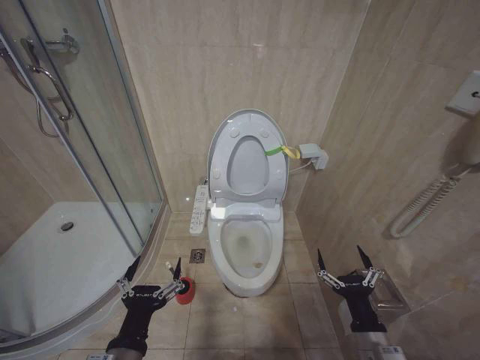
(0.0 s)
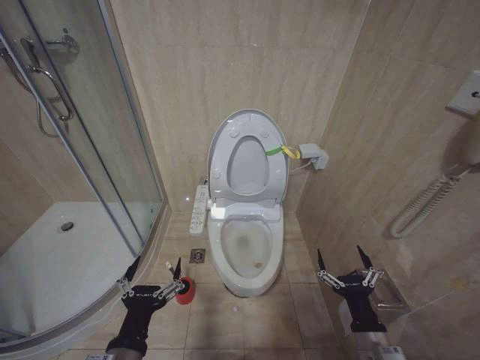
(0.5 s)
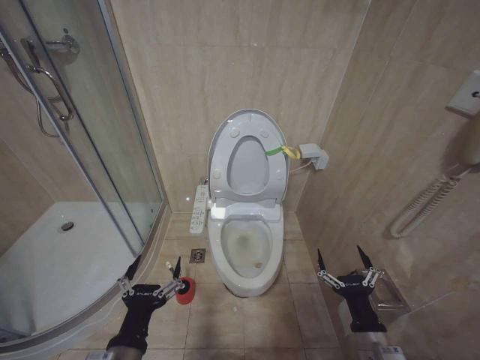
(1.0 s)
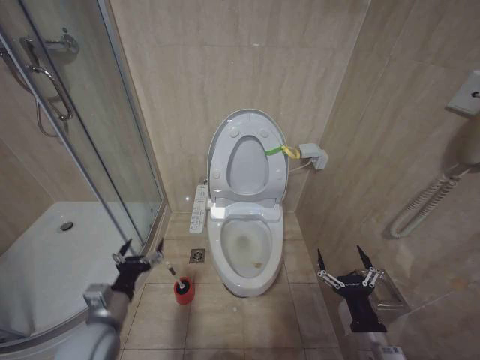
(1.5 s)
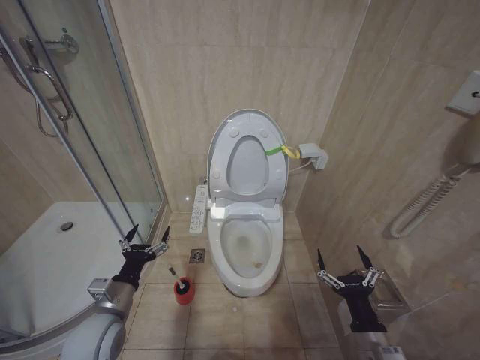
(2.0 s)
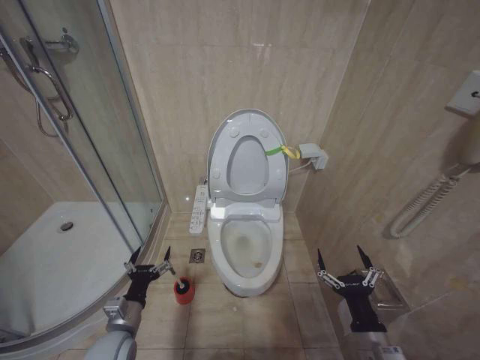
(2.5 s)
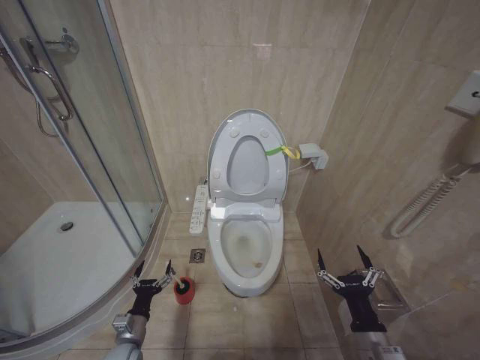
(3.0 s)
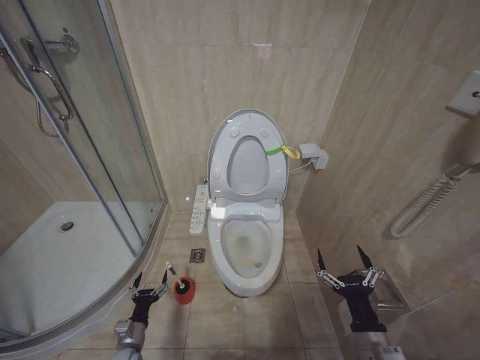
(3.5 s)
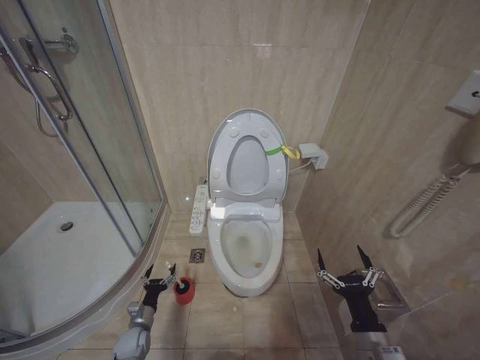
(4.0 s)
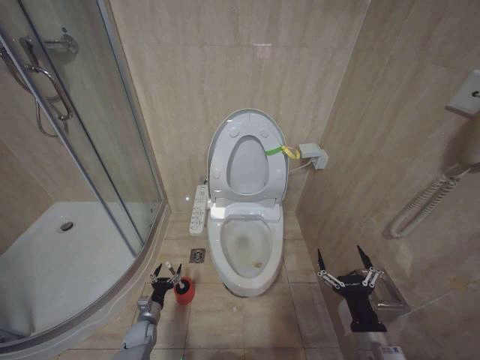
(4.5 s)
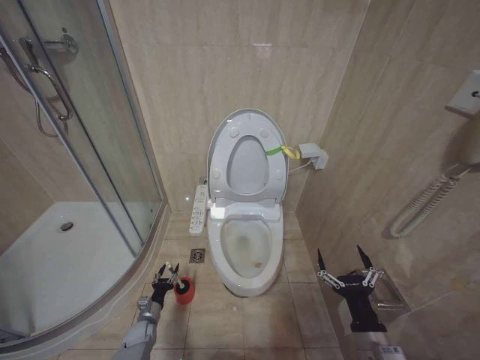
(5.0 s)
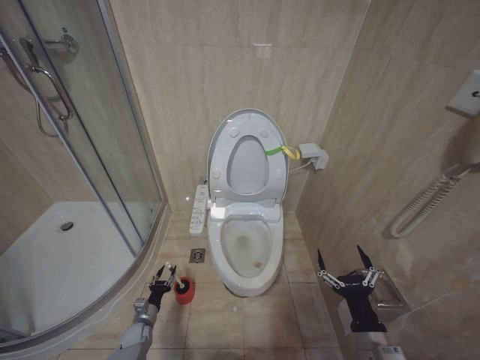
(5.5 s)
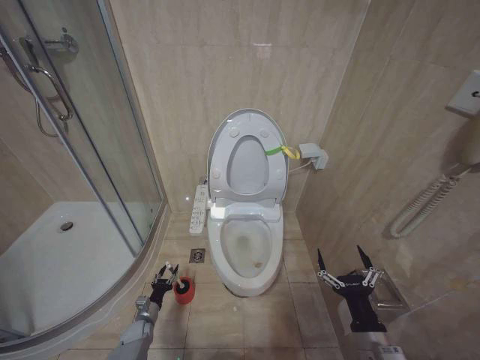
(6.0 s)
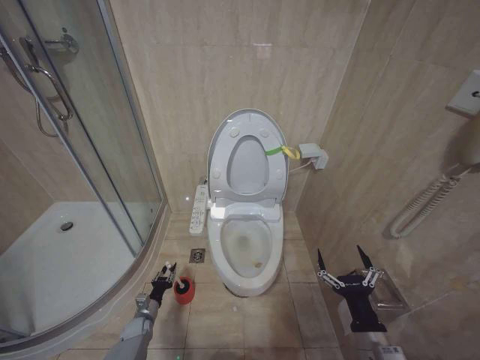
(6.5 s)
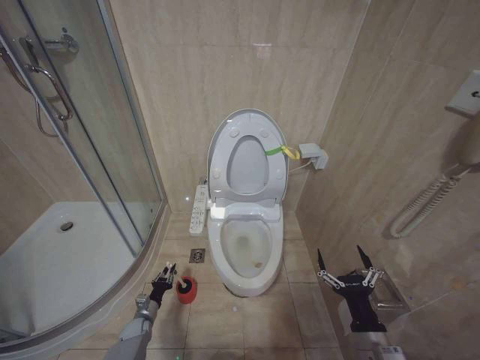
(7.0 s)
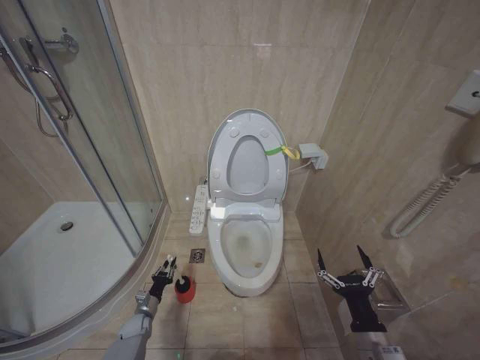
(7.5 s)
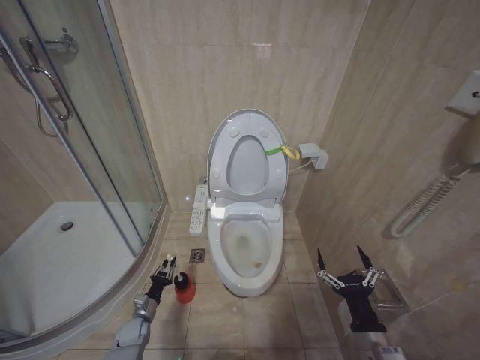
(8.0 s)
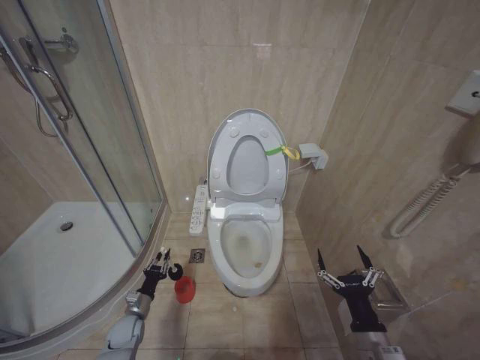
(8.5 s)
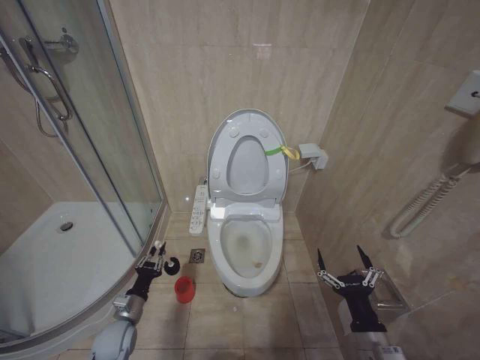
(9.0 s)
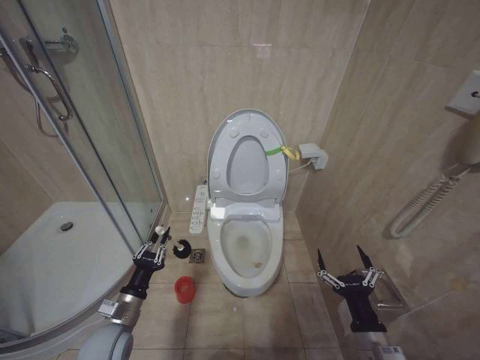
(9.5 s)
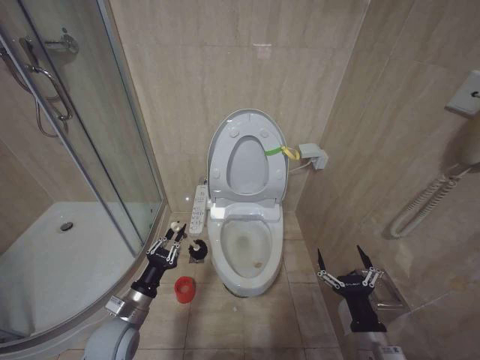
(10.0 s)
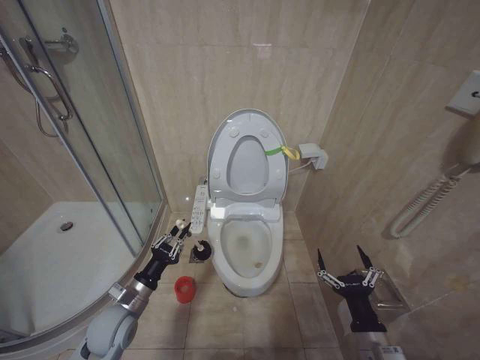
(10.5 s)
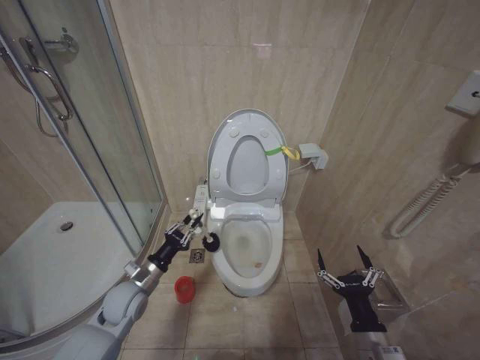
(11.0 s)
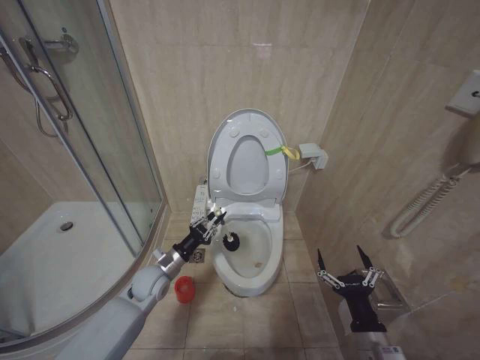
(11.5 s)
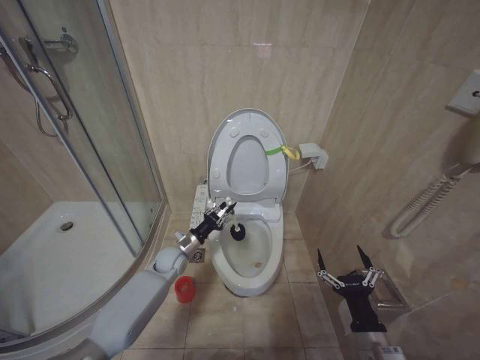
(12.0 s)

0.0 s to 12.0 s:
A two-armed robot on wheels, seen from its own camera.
Task of the whole recording: Open the toilet lid, clean the toilet bowl with a toilet brush, close the toilet lid, and flush.
0.0 to 2.0 s: The left gripper shifts roughly 15 cm forward and to the left.
2.0 to 4.0 s: The left gripper goes some 30 cm downward.
4.0 to 6.0 s: The left gripper moves about 5 cm, and closes its fingers.
6.0 to 8.0 s: The left gripper closes up.
8.0 to 10.0 s: The left gripper shifts approximately 25 cm upward.
10.0 to 12.0 s: The left gripper shifts some 20 cm forward.

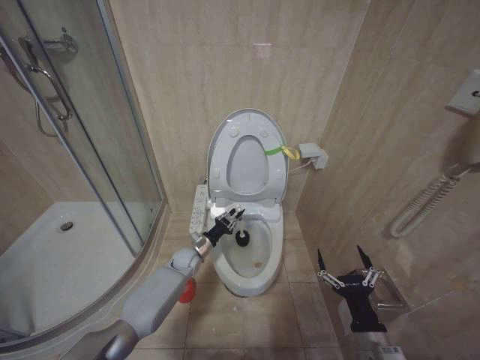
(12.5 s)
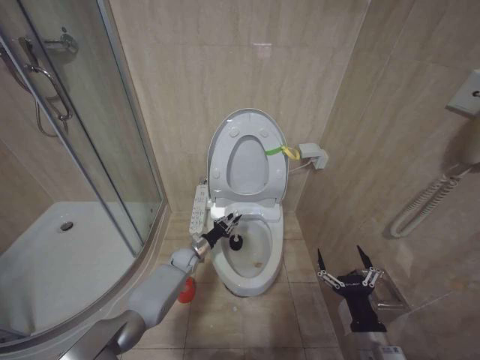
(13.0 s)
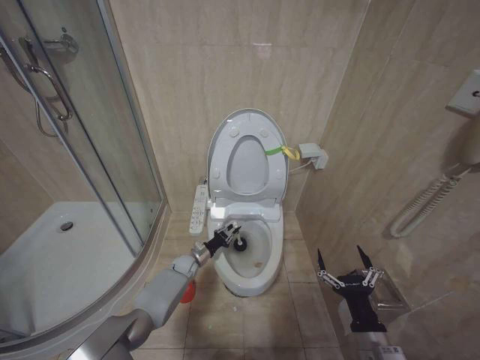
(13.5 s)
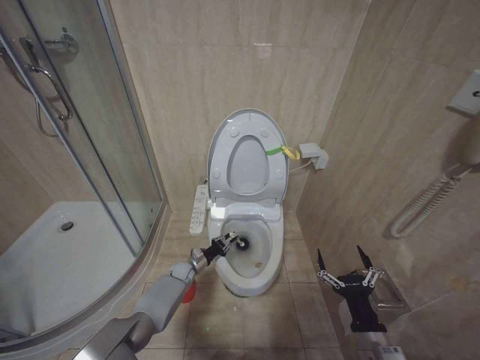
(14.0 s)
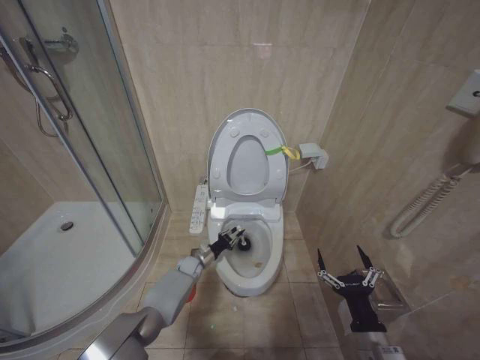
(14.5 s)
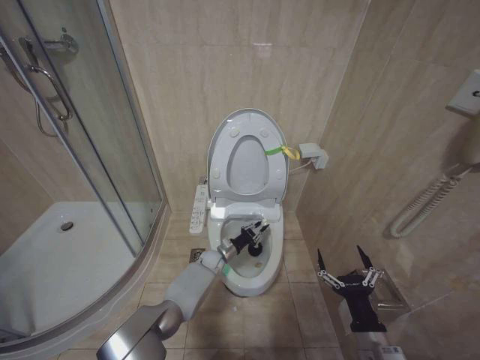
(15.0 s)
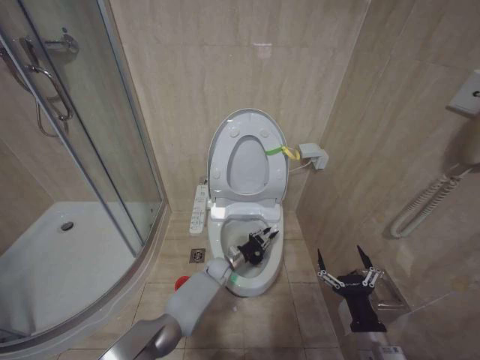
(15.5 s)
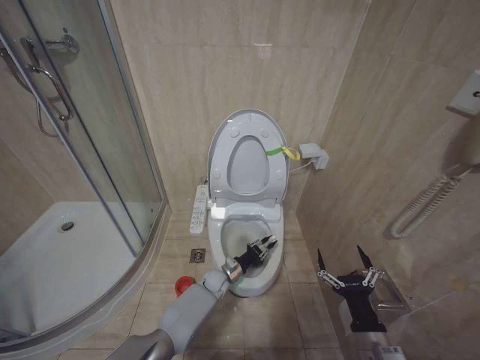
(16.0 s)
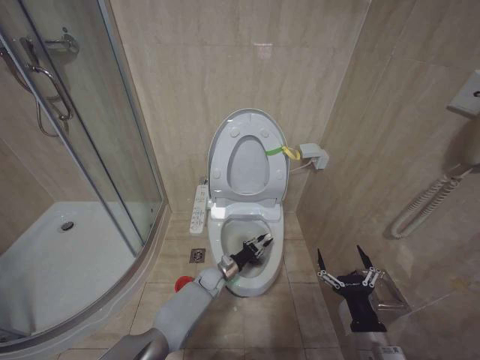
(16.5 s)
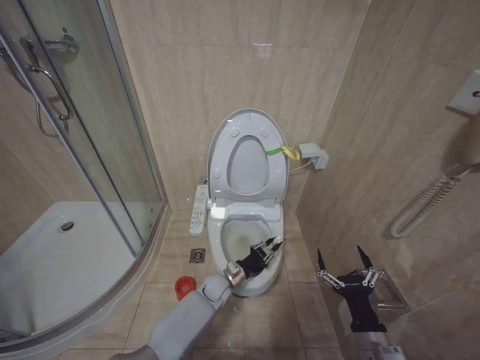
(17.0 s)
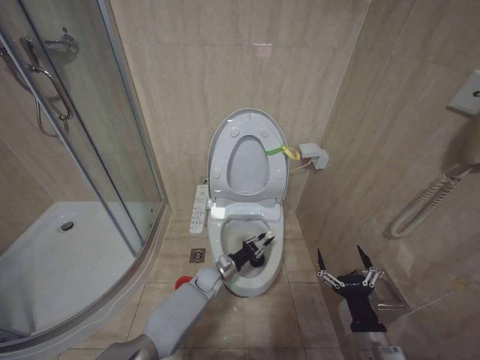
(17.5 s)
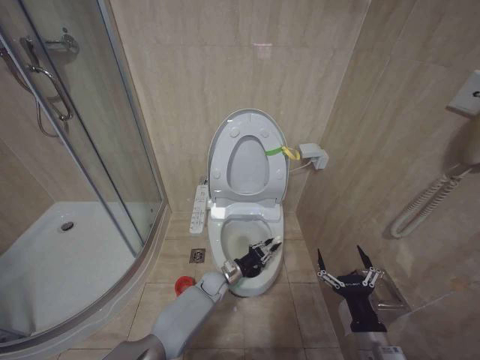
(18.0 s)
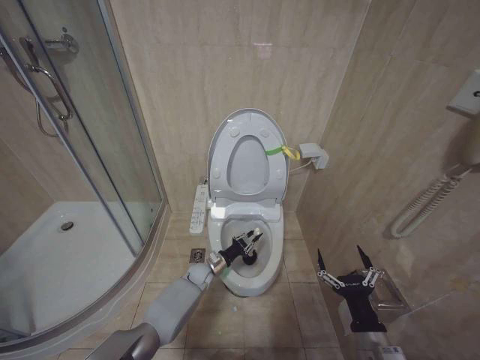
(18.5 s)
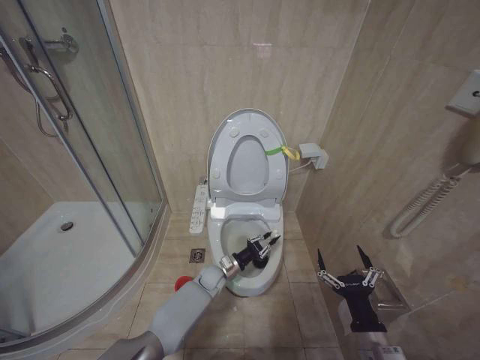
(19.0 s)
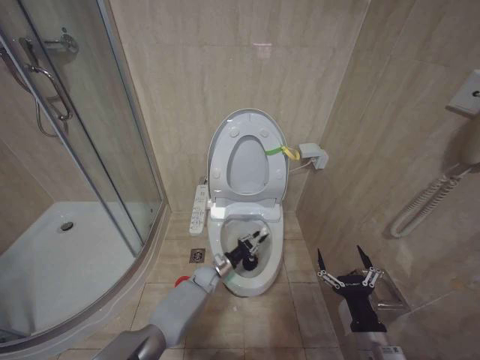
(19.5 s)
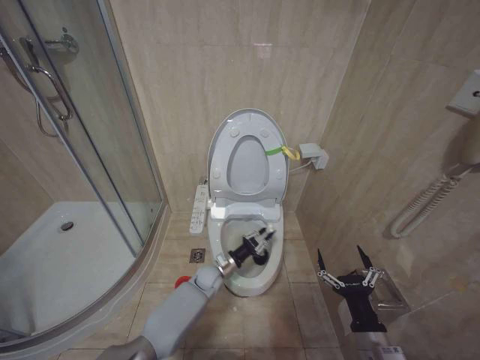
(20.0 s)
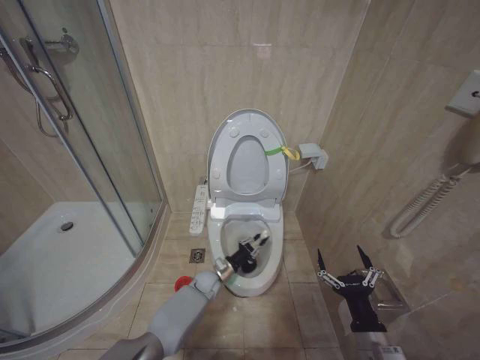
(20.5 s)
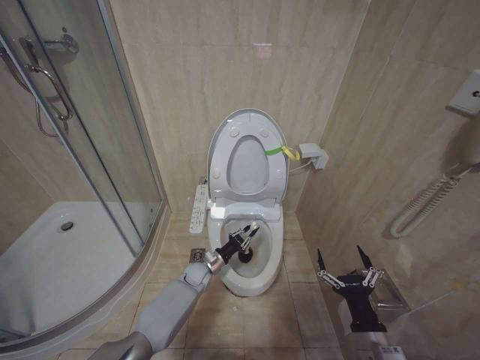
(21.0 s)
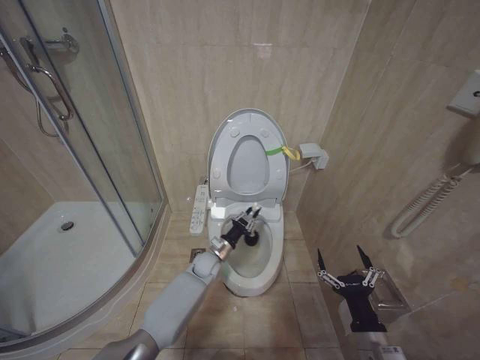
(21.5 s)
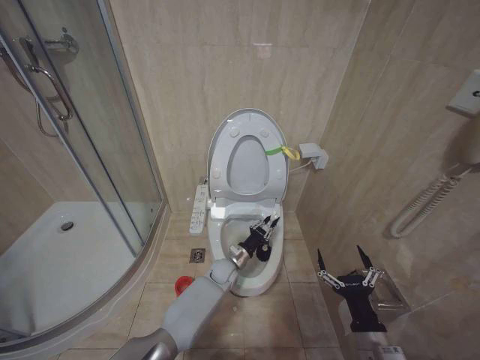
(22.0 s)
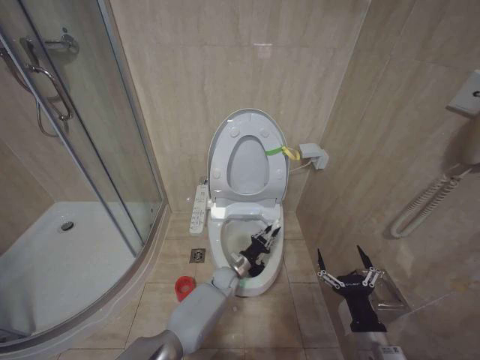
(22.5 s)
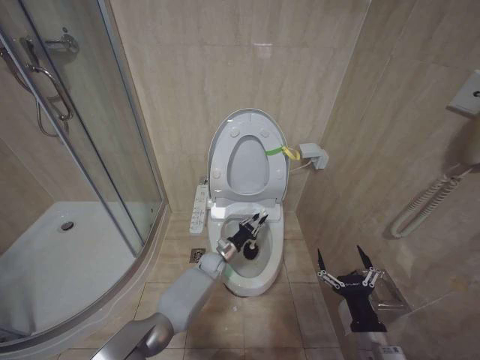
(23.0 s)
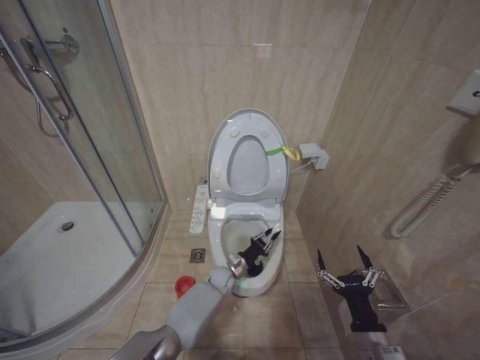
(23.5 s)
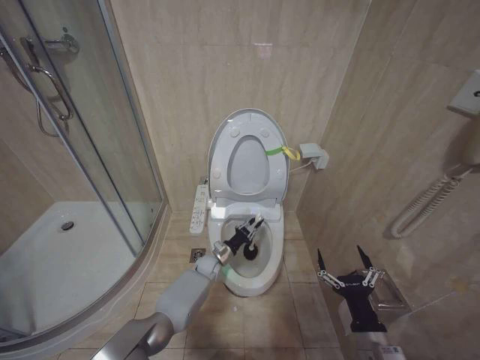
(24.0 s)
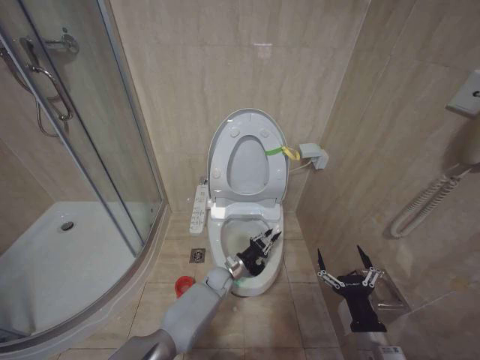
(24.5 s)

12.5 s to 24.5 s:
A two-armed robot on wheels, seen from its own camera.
Task of the whole recording: Open the toilet lid, clean the toilet bowl with a toilet brush, close the toilet lid, and flush.
12.5 to 14.5 s: The left gripper shifts some 10 cm downward.
14.5 to 16.5 s: The left gripper moves to the right, roughly 10 cm.
20.5 to 22.5 s: The left gripper is displaced to the right by about 5 cm.
22.5 to 24.5 s: The left gripper goes left and right, roughly 5 cm each way, reversing 3 times.

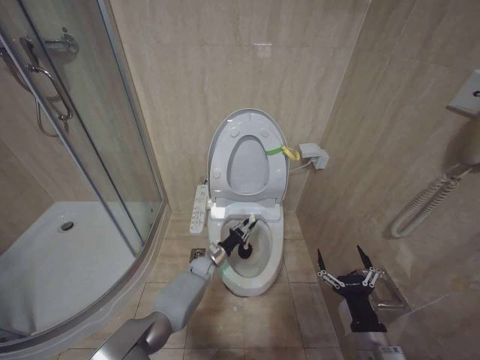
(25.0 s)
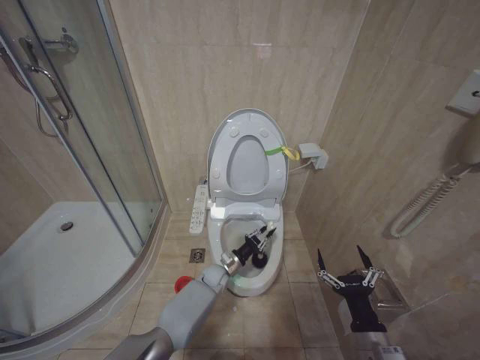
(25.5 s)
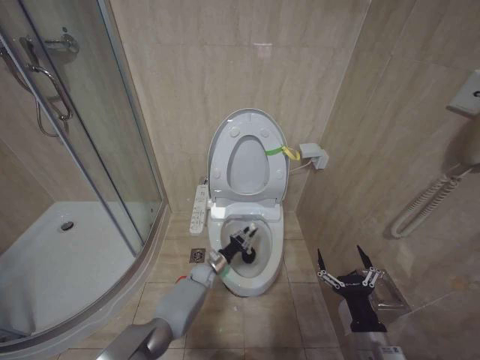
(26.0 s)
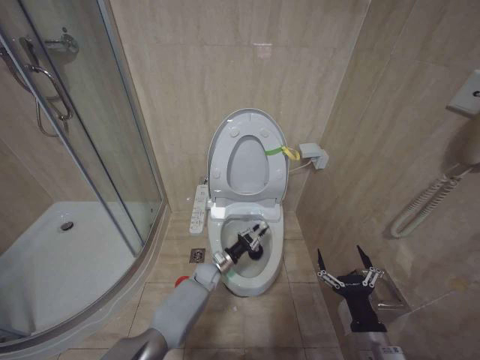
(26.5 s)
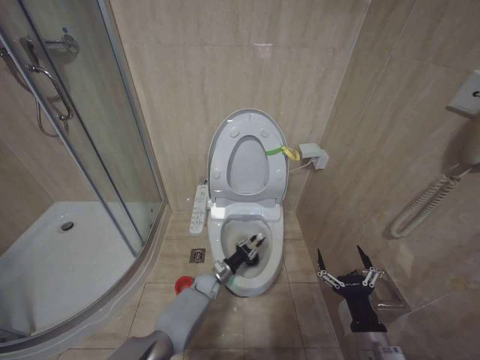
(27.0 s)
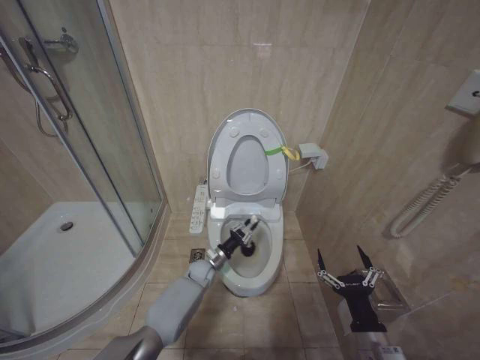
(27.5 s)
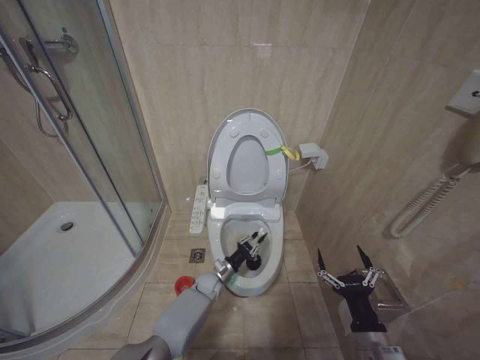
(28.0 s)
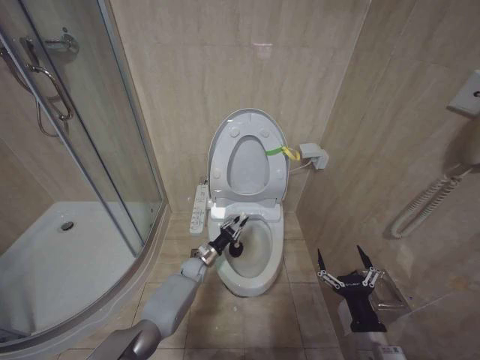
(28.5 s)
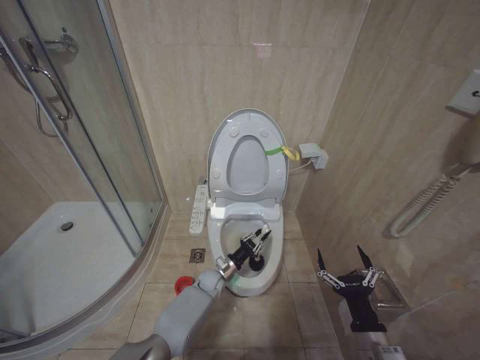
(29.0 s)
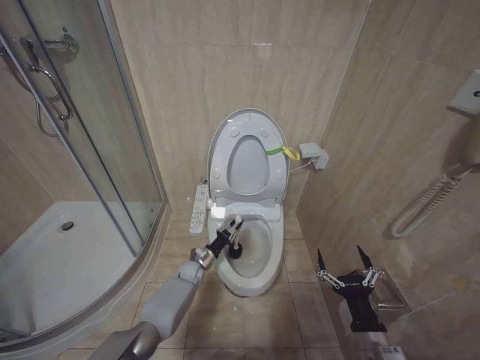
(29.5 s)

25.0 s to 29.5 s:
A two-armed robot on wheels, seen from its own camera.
Task of the whole recording: Open the toilet lid, clean the toilet bowl with a toilet brush, close the toilet lid, and flush.
25.0 to 27.0 s: The grippers stay close to where they were, moving slightly.
27.0 to 29.5 s: The left gripper swings left and right, roughly 10 cm each way, with 2 reversals.
